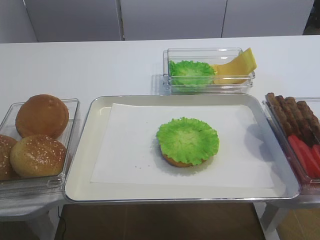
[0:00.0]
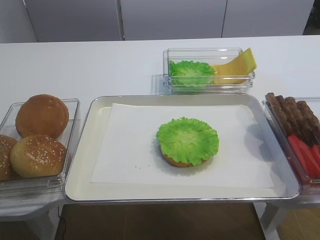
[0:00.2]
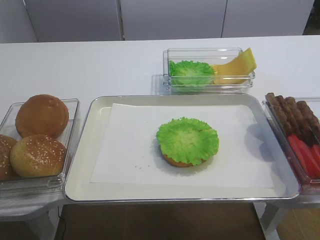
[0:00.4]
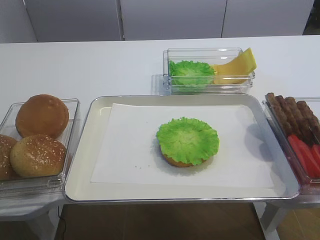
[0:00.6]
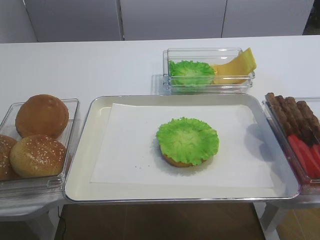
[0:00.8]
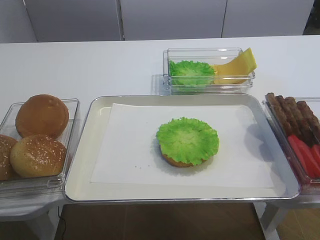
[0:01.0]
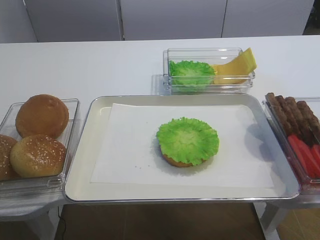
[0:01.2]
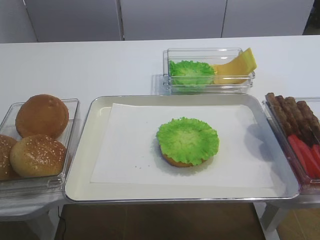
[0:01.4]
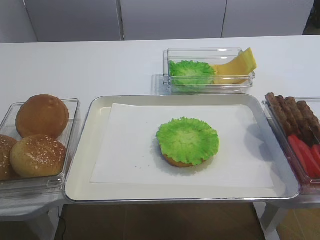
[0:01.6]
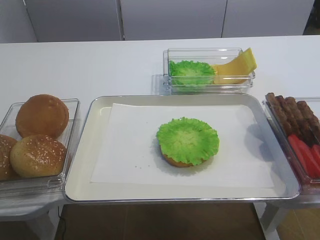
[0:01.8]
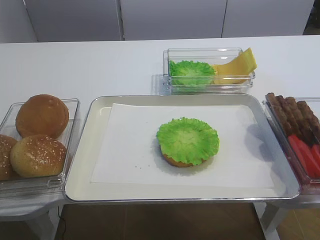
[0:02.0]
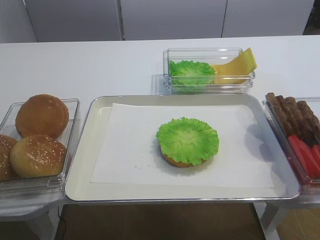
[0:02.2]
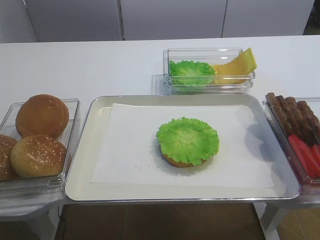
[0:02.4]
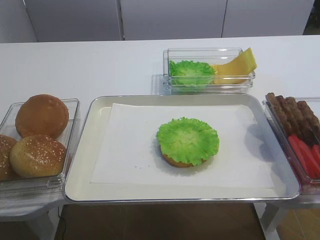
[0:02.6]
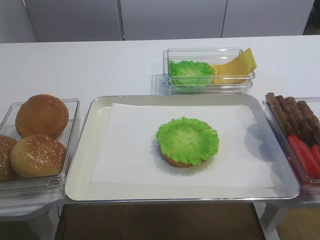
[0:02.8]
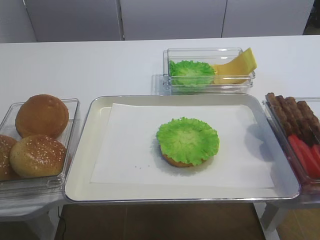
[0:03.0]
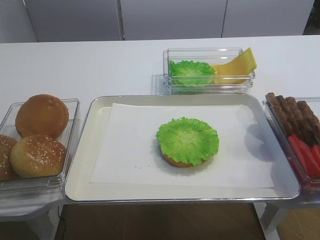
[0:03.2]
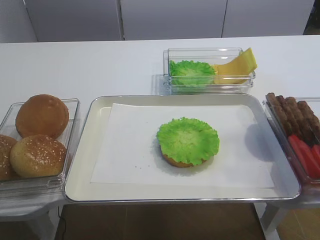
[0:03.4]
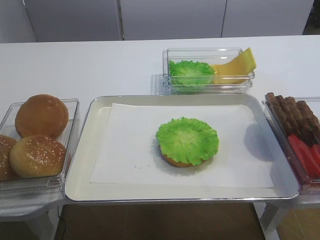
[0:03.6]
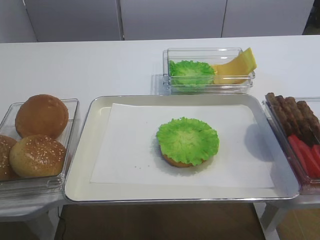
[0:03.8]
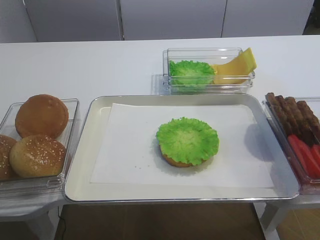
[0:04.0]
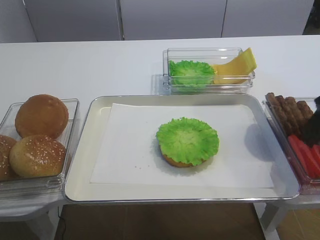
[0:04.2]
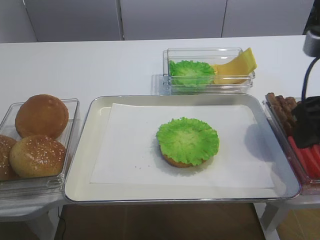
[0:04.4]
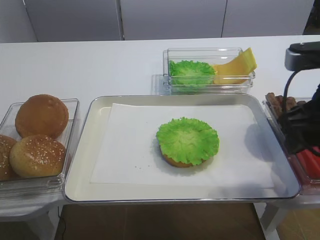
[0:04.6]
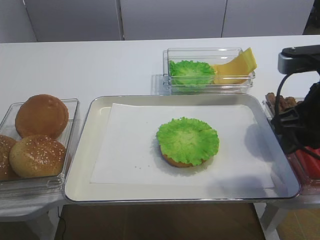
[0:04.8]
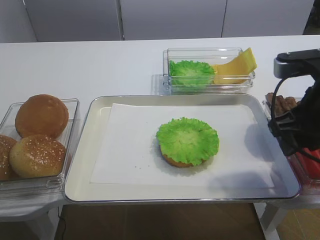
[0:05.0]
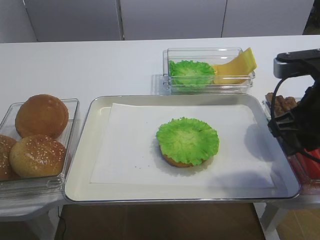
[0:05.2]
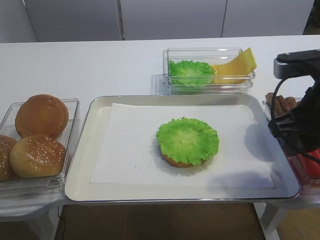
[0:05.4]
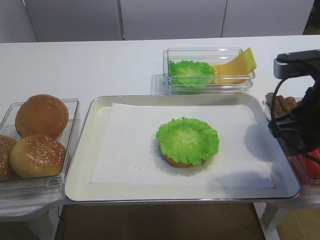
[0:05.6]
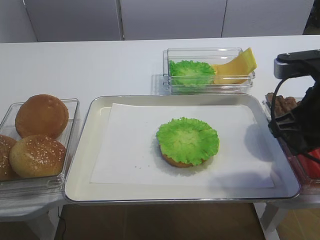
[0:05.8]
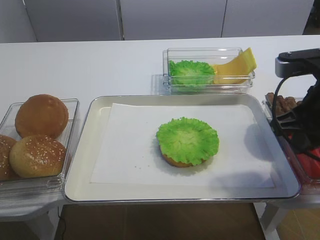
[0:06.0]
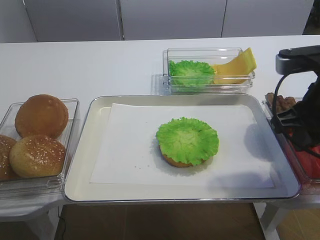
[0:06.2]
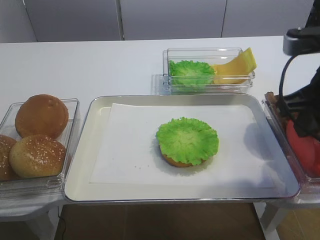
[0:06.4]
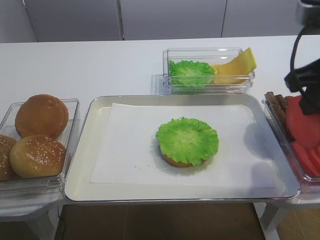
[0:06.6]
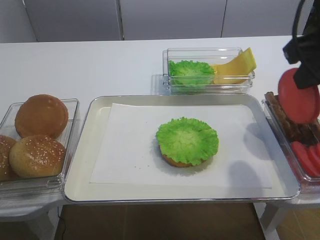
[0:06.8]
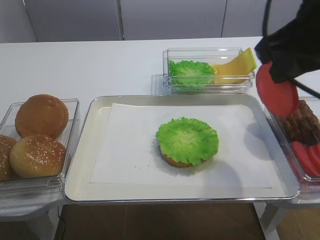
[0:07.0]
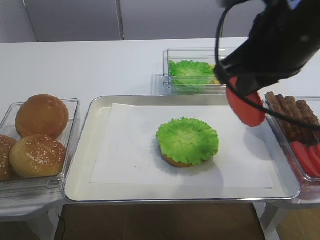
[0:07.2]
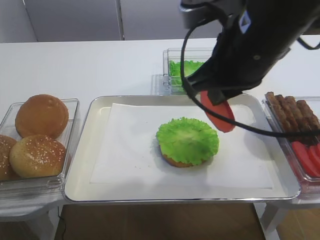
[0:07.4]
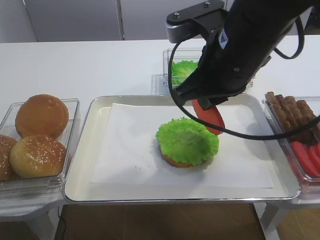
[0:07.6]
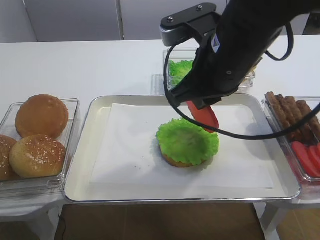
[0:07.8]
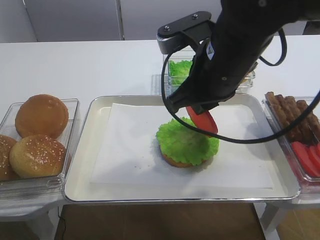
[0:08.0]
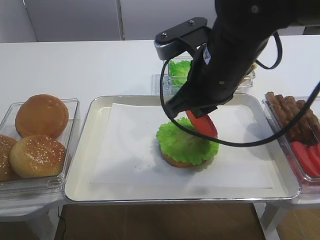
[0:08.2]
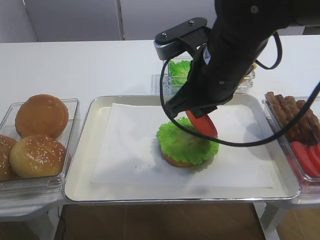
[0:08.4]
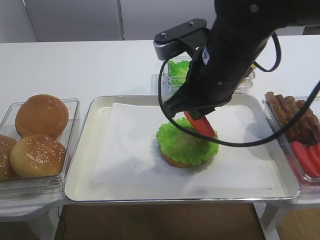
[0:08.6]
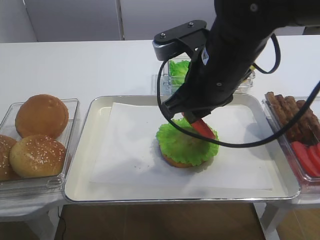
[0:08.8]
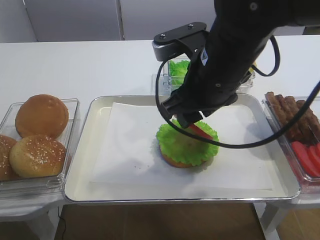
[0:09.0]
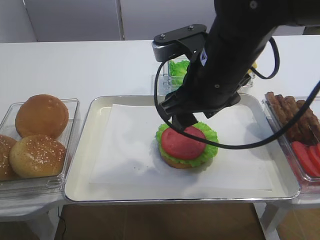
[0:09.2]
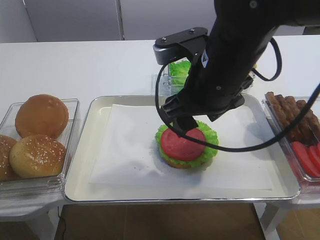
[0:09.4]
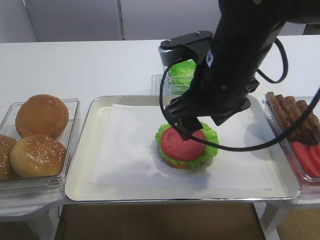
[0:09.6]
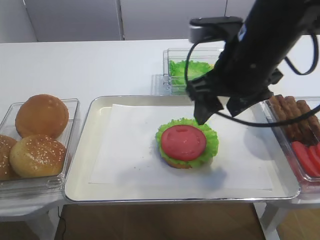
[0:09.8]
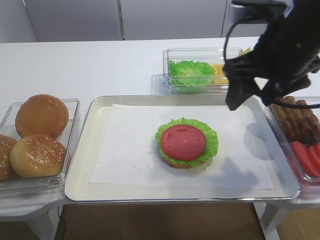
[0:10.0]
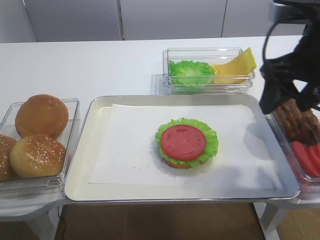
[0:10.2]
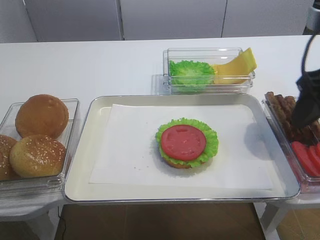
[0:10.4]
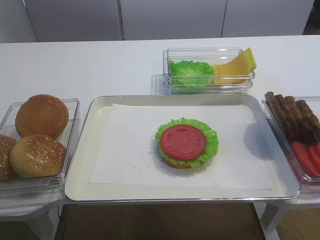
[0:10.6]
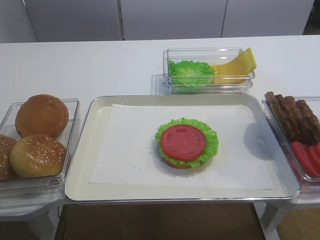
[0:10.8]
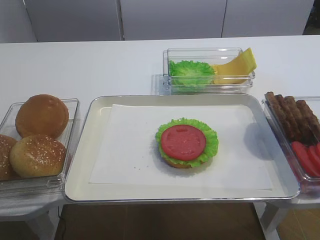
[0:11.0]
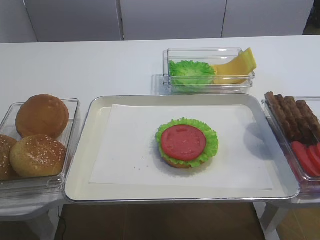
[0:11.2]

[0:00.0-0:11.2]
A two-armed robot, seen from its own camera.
Step, 0:00.0 to 0:06.4: Pick up the tomato slice with the right gripper.
Step, 0:06.6 to 0:09.6: Place the tomato slice on the lettuce leaf with the right gripper.
0:03.2 to 0:04.8: The right gripper is displaced forward by some 15 cm.
0:04.8 to 0:06.4: The right gripper closes up.
0:06.4 to 0:08.0: The right gripper travels to the left by approximately 15 cm.
0:08.0 to 0:09.6: The right gripper opens up.
0:09.6 to 0:11.2: The right gripper travels backward and to the right by about 25 cm.

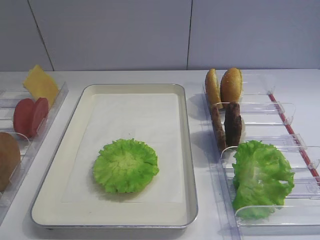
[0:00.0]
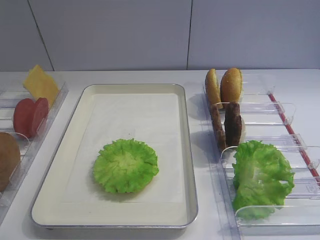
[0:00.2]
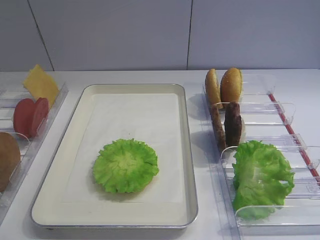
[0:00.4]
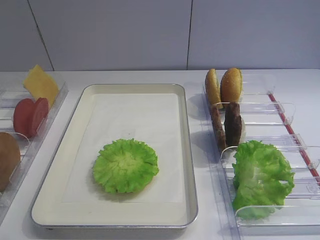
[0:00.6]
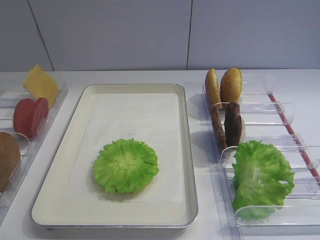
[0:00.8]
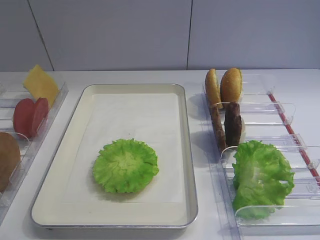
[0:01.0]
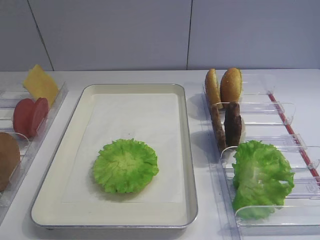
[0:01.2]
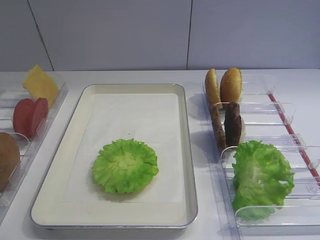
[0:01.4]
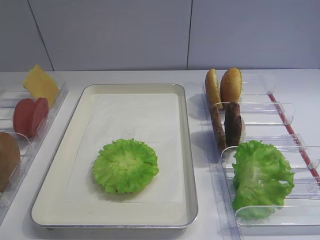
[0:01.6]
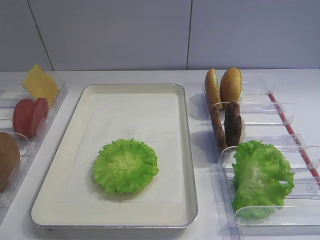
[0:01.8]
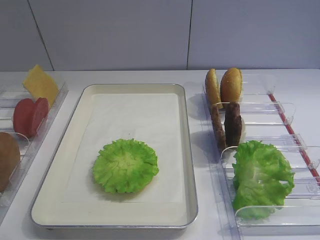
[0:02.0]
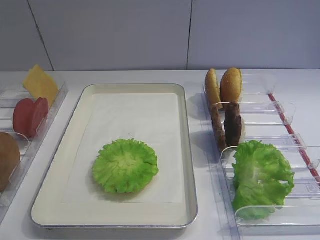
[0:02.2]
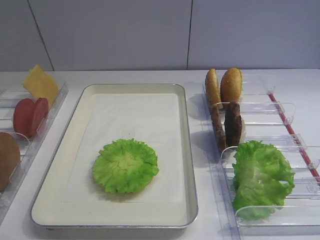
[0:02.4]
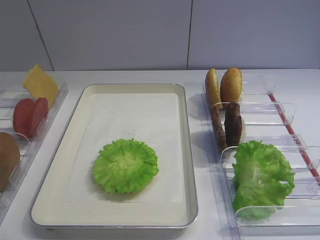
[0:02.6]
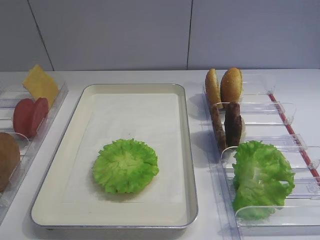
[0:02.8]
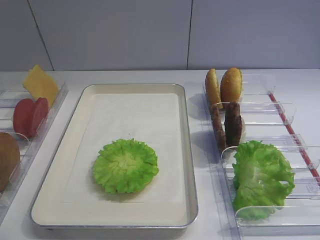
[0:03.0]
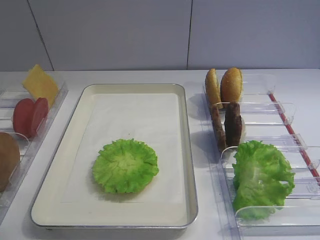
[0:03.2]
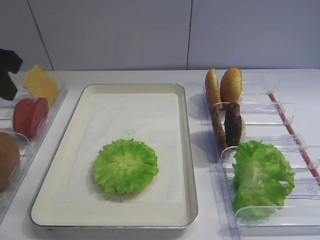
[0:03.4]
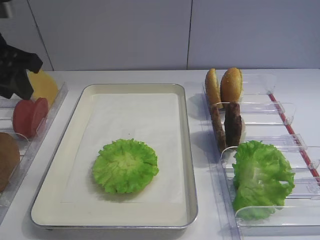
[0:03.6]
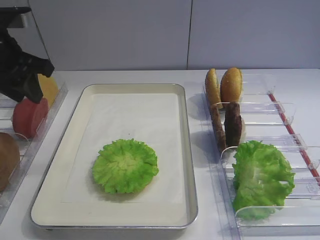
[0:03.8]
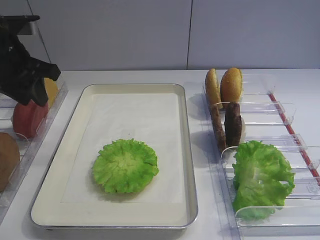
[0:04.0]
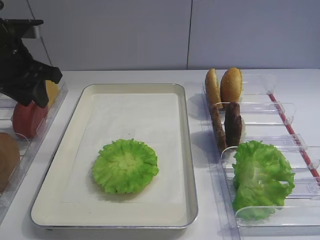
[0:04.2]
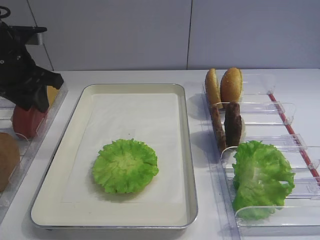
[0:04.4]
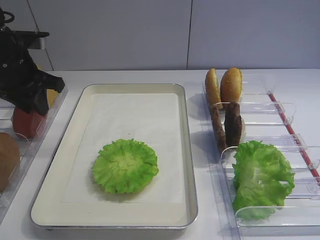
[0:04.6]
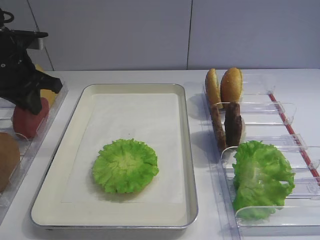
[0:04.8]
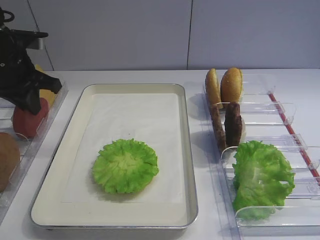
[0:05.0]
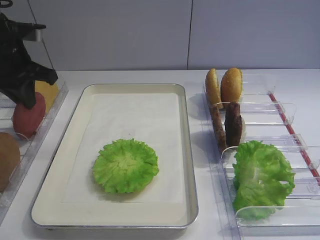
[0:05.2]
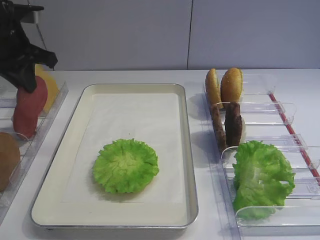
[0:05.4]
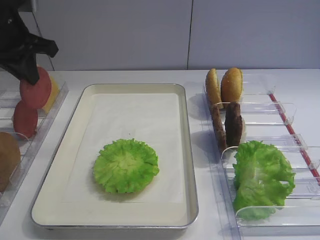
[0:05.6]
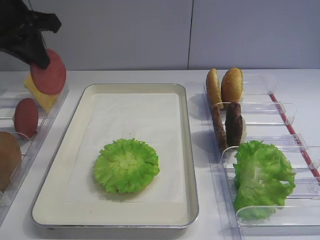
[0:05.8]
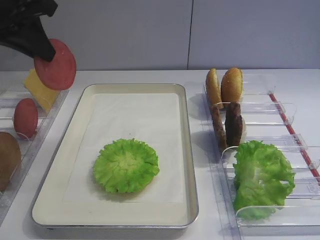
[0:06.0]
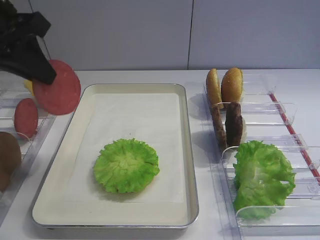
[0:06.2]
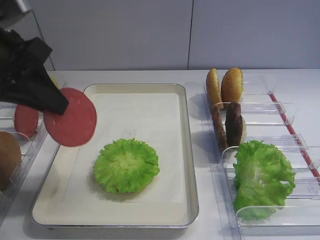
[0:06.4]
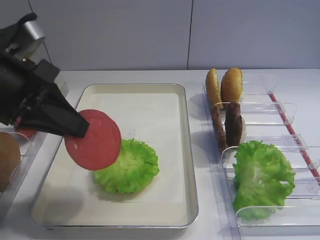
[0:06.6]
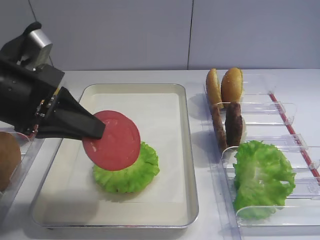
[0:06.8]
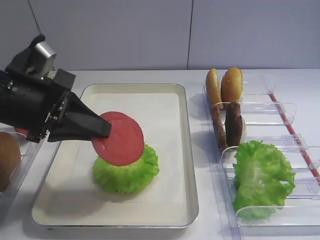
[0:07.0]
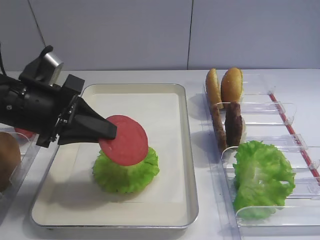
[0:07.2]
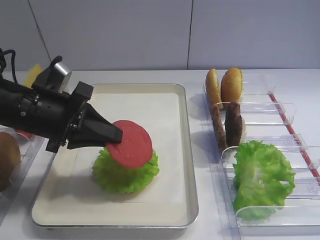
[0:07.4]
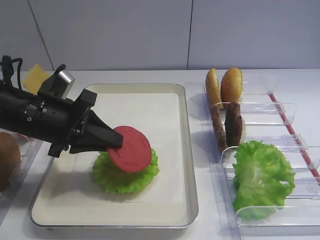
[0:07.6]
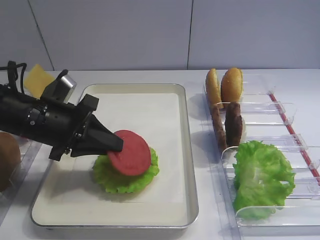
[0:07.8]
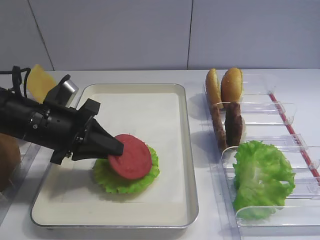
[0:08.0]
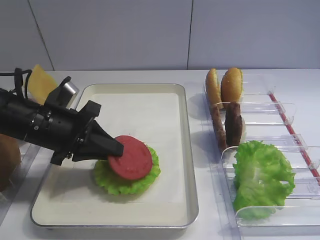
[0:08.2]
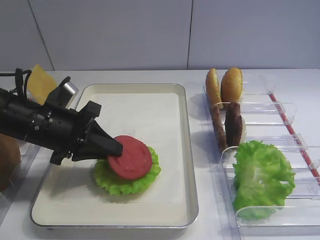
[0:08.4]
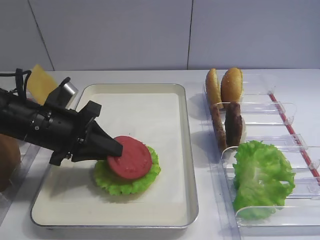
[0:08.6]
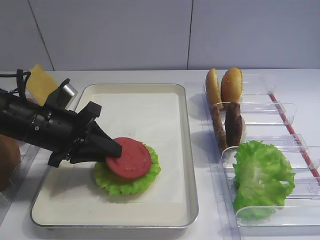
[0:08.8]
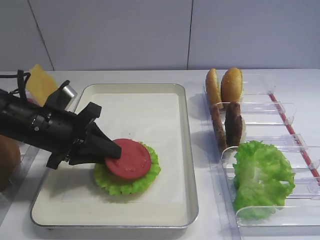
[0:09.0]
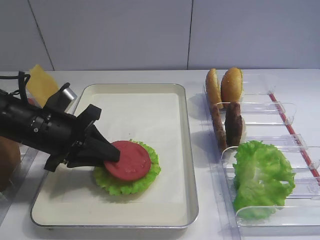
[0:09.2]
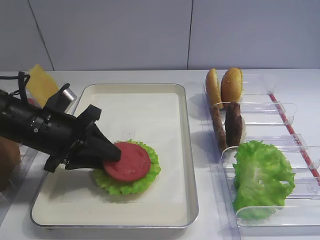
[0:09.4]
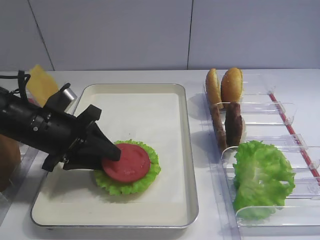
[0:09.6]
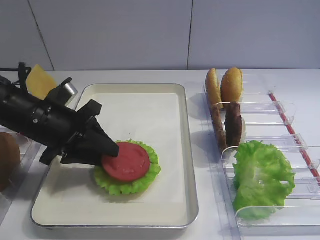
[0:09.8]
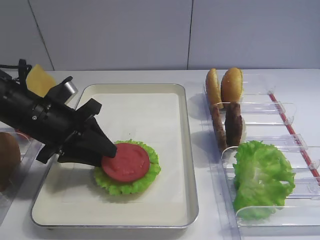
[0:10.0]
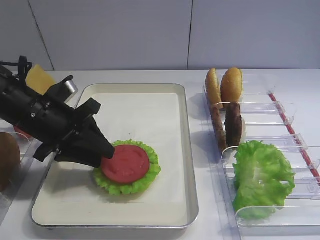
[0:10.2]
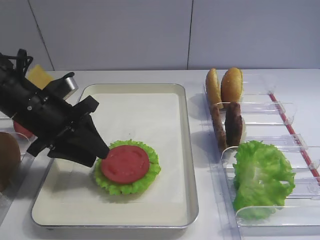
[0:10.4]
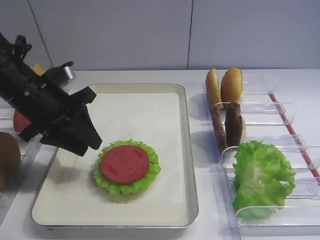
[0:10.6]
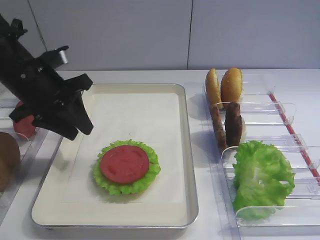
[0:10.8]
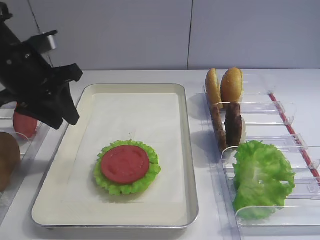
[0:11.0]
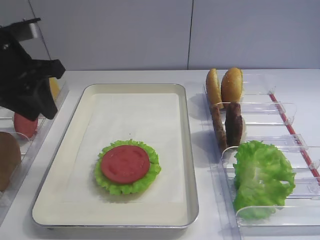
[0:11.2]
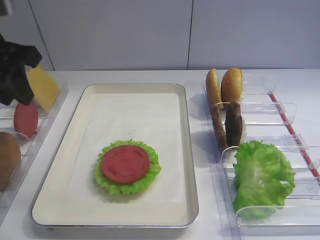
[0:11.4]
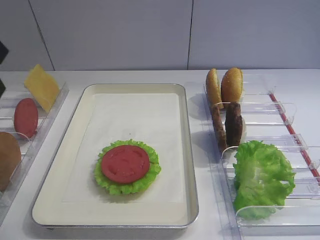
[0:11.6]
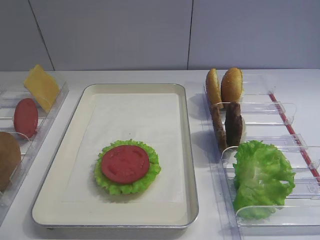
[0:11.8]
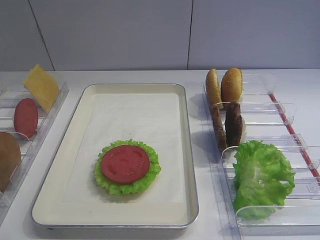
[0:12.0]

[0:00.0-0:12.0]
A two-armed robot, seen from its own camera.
Step, 0:00.0 to 0:05.4: Pick up the tomato slice with the left gripper.
Step, 0:05.6 to 0:10.6: Place the tomato slice on the lettuce leaf with the left gripper.
0:03.0 to 0:04.4: The left gripper goes some 20 cm forward and downward.
0:04.4 to 0:06.0: The left gripper is displaced upward by approximately 10 cm, and closes.
0:06.0 to 0:07.6: The left gripper travels downward by about 15 cm.
0:07.6 to 0:09.0: The grippers move only a little.
0:09.0 to 0:10.4: The left gripper opens its fingers.
0:10.4 to 0:12.0: The left gripper heads upward, backward and to the left, covering about 25 cm.
